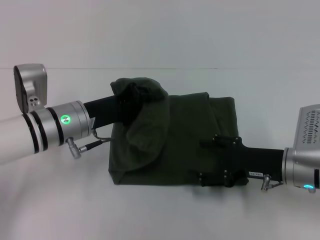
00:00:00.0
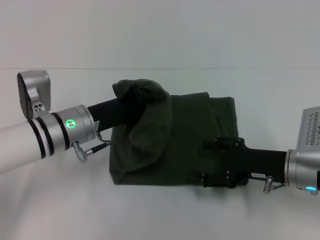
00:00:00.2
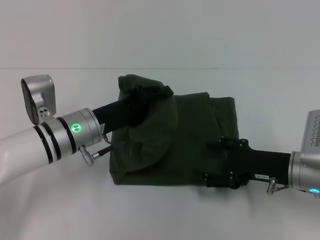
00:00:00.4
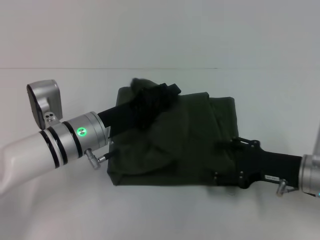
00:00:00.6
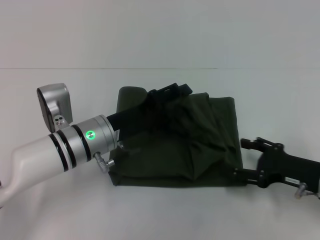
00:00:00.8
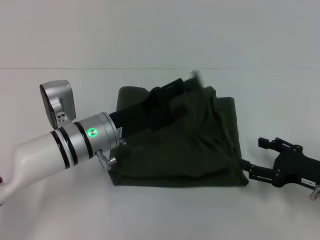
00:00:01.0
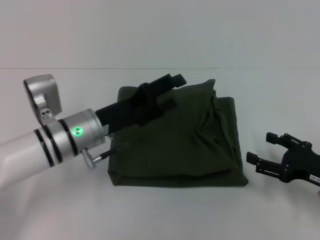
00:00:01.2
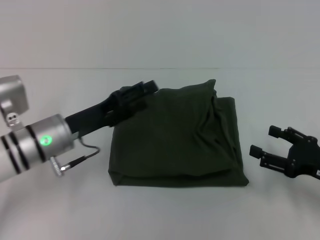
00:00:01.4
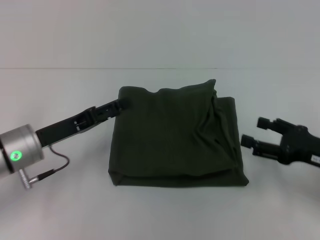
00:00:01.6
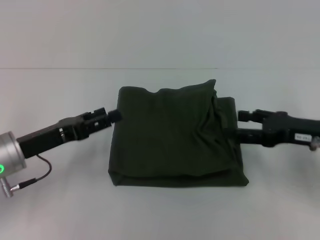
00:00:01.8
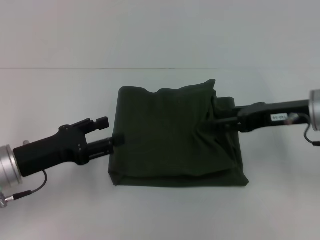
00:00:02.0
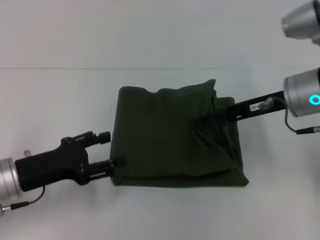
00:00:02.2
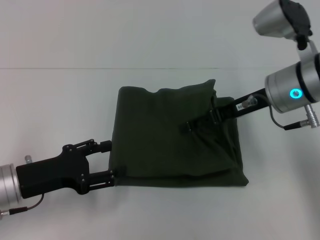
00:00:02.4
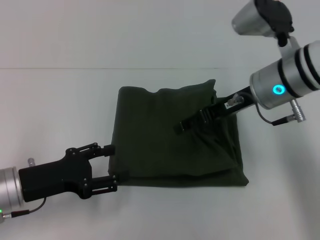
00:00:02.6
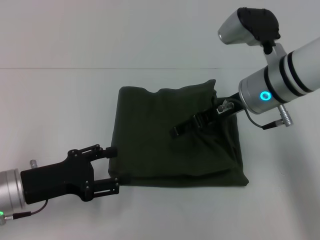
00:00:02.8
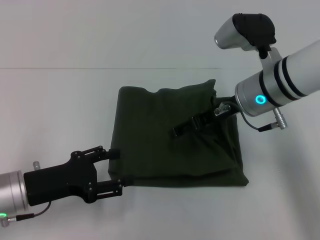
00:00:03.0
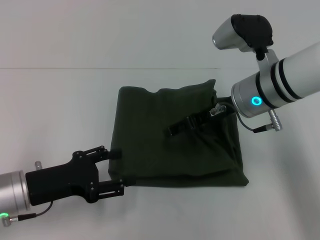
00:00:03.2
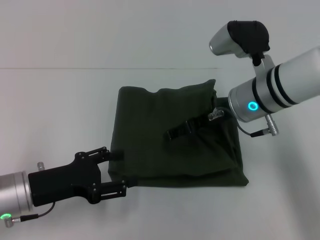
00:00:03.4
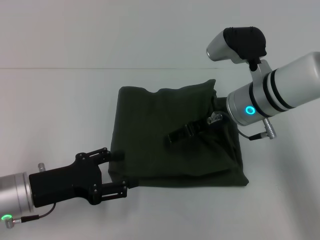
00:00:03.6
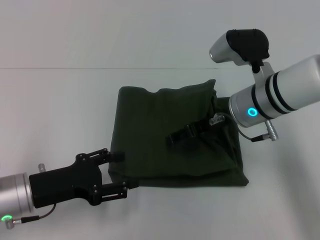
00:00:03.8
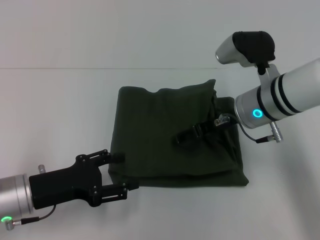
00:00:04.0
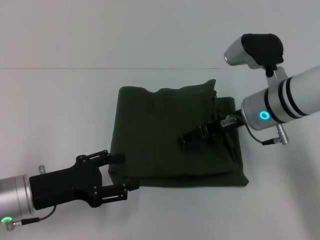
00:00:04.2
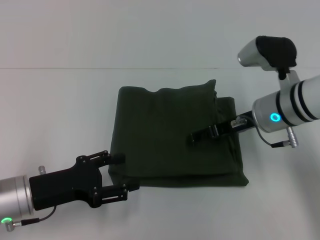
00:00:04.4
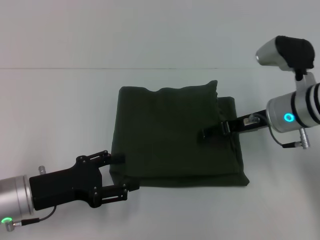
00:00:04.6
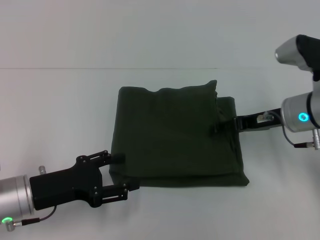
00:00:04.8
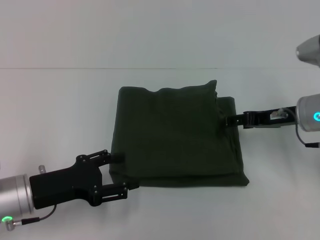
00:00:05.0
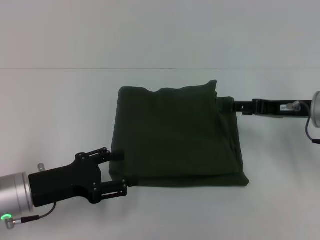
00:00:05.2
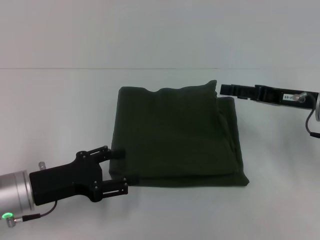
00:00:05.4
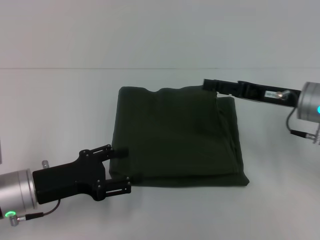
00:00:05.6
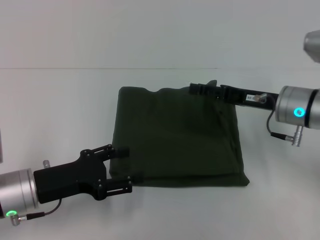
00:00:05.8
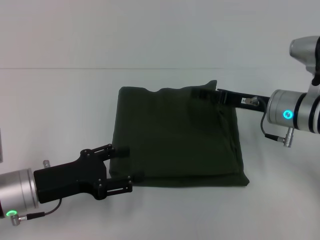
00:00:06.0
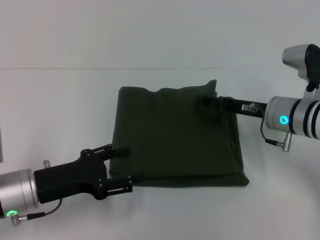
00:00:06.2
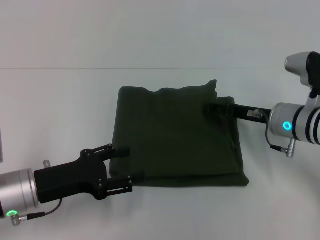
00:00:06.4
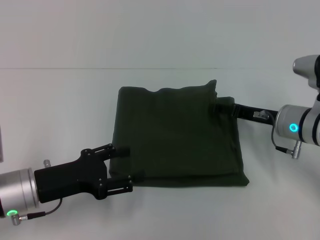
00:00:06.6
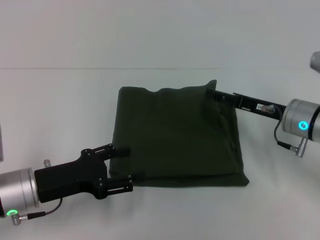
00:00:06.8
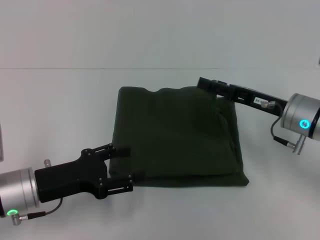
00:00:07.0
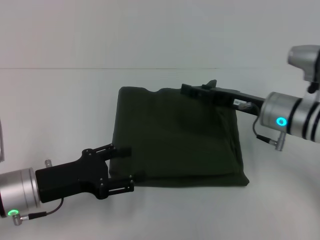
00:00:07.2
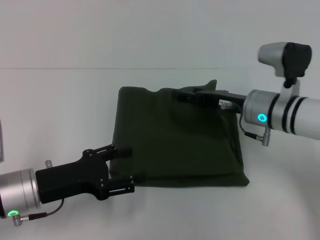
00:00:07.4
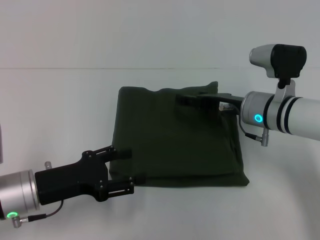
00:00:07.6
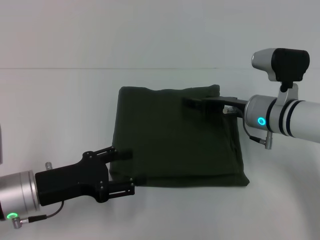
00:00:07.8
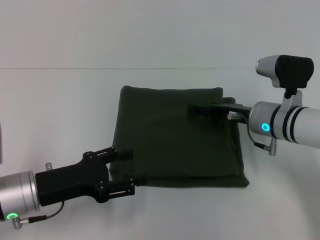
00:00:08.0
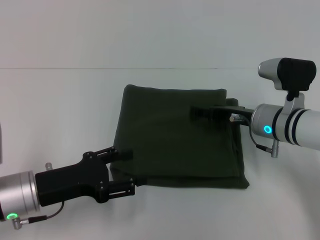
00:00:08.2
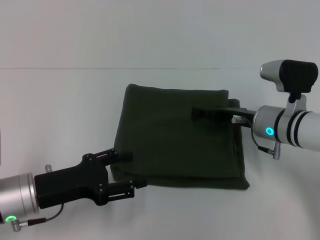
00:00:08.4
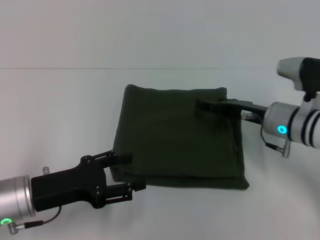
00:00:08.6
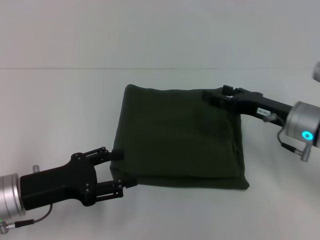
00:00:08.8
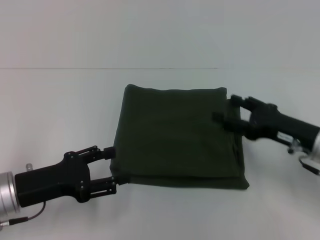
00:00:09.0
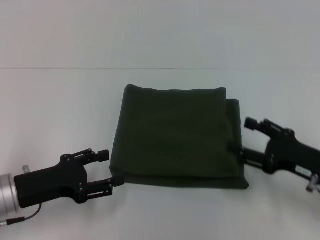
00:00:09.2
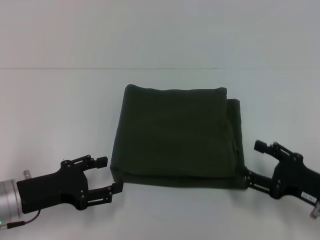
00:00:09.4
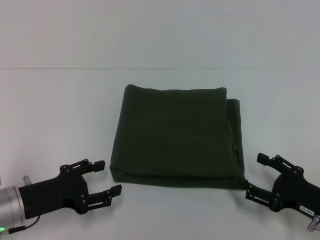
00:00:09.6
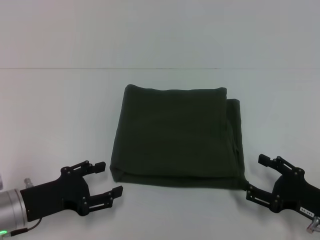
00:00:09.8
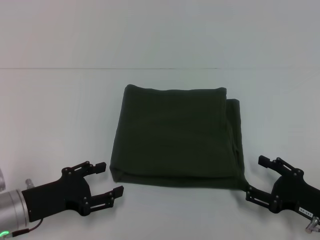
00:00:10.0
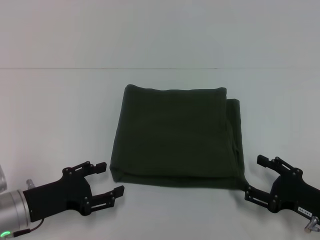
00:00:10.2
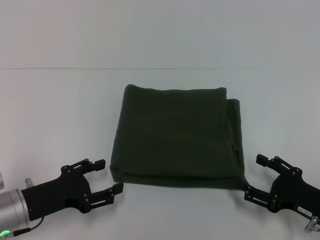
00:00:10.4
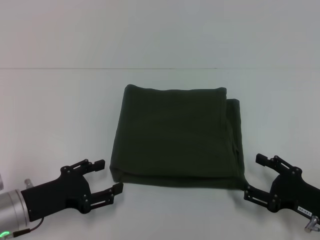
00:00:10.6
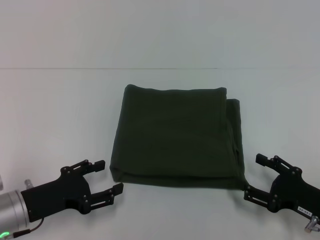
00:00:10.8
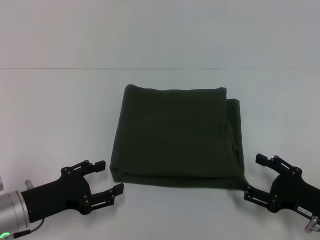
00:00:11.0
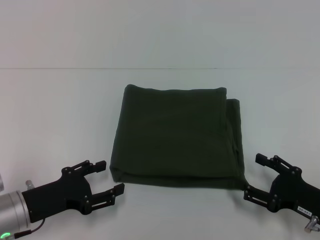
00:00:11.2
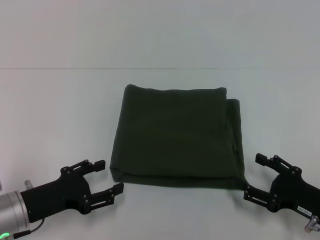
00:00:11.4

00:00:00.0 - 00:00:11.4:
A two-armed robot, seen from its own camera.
00:00:00.0 - 00:00:01.4: The right gripper travels to the right by about 10 cm; the left gripper opens.
00:00:01.4 - 00:00:02.8: The left gripper moves backward and to the left, about 10 cm, while the right gripper goes roughly 25 cm to the left, forward and upward.
00:00:02.8 - 00:00:04.2: There are only small adjustments of the grippers.
00:00:04.2 - 00:00:05.6: The right gripper shifts roughly 10 cm to the right.
00:00:05.6 - 00:00:07.2: The right gripper moves approximately 5 cm.
00:00:07.2 - 00:00:08.6: There are only small adjustments of the grippers.
00:00:08.6 - 00:00:10.0: The right gripper moves backward and to the right, some 20 cm.
00:00:10.0 - 00:00:11.4: Both grippers stay about where they are.
